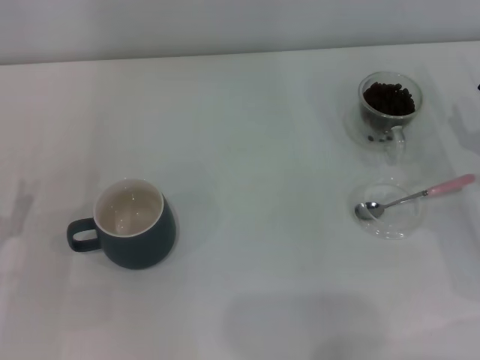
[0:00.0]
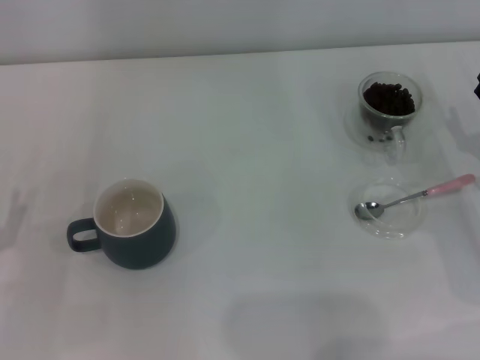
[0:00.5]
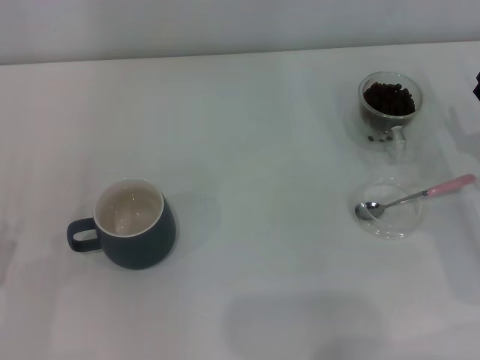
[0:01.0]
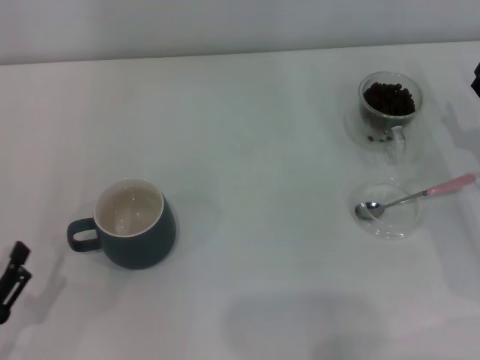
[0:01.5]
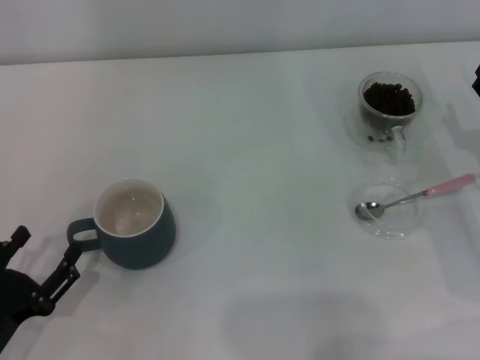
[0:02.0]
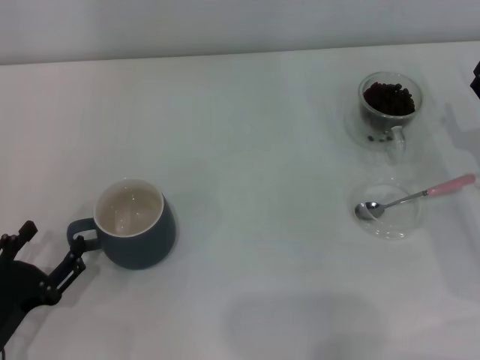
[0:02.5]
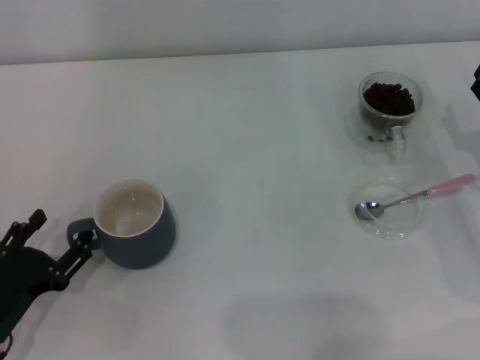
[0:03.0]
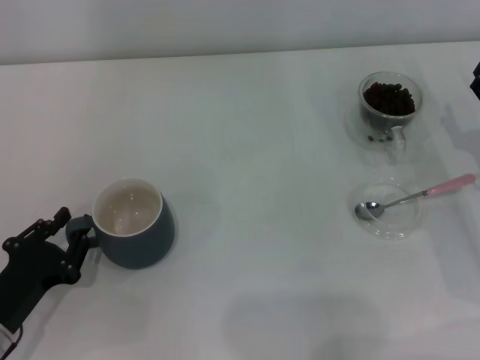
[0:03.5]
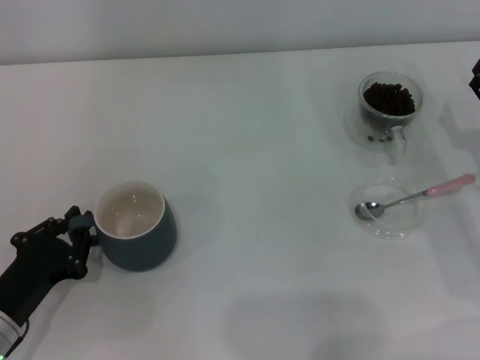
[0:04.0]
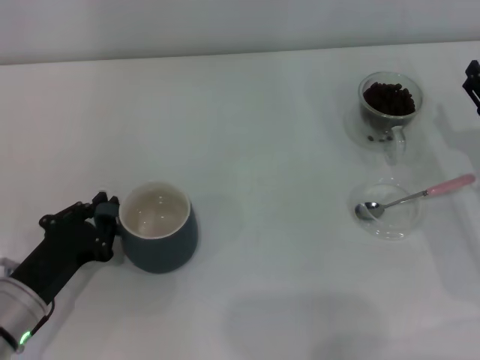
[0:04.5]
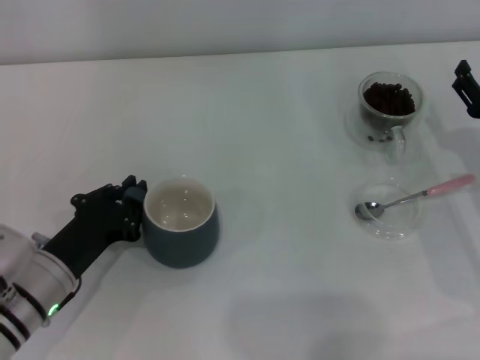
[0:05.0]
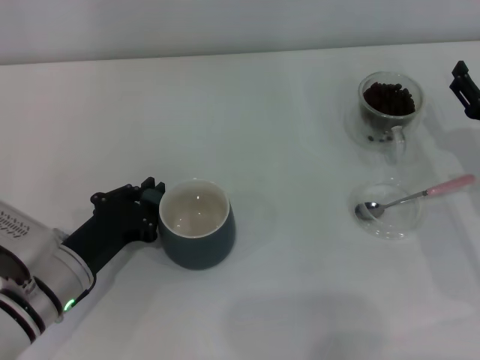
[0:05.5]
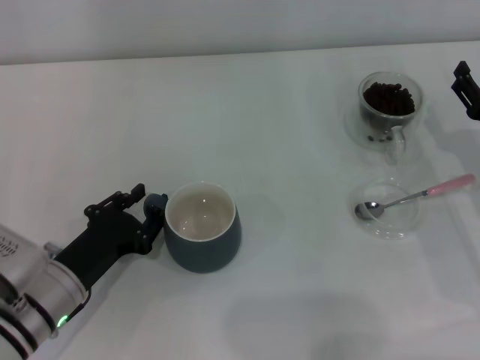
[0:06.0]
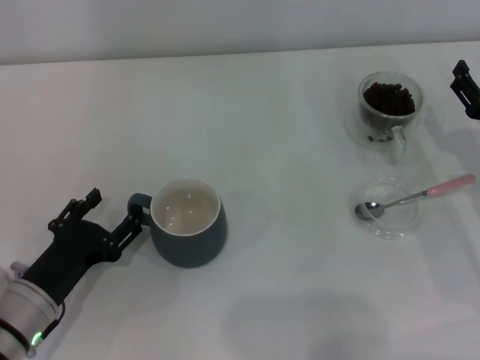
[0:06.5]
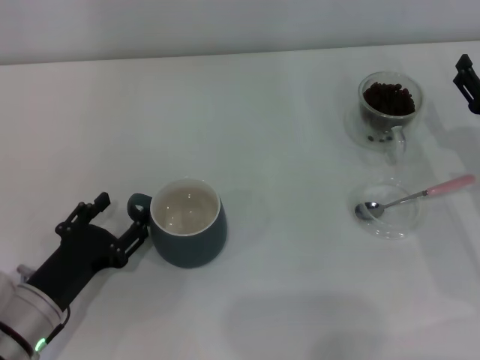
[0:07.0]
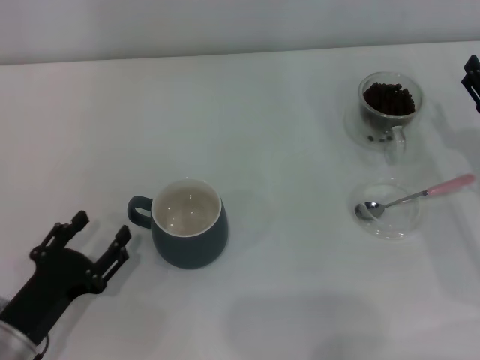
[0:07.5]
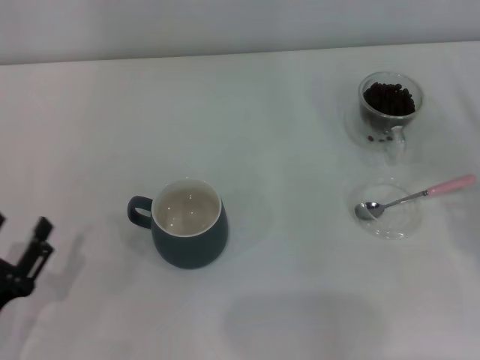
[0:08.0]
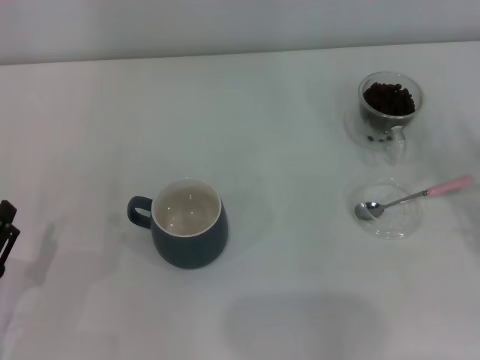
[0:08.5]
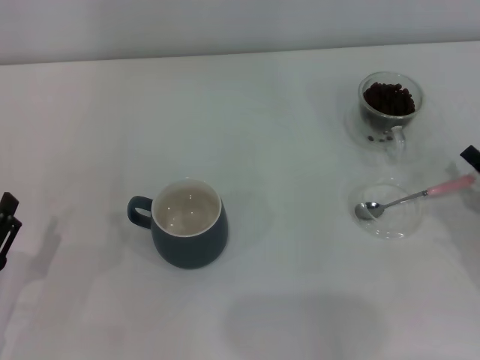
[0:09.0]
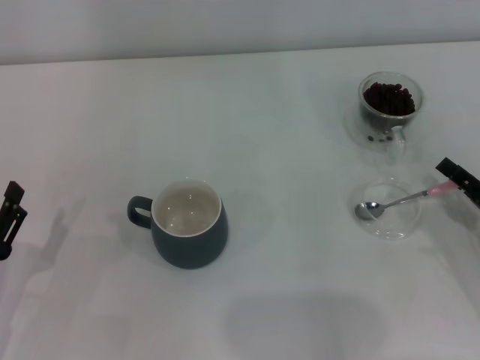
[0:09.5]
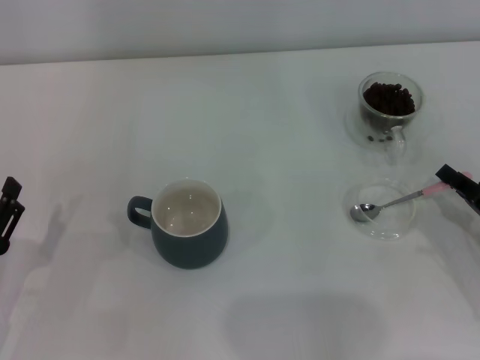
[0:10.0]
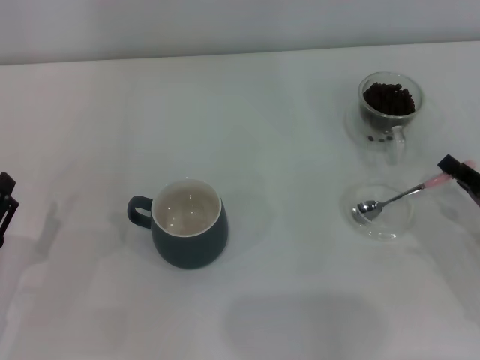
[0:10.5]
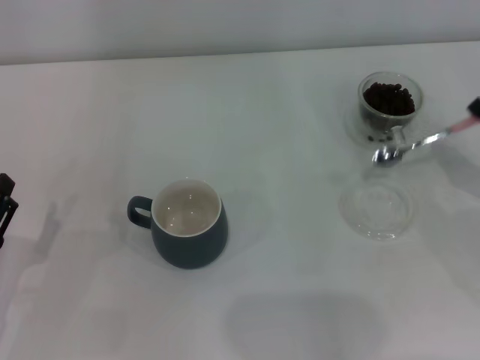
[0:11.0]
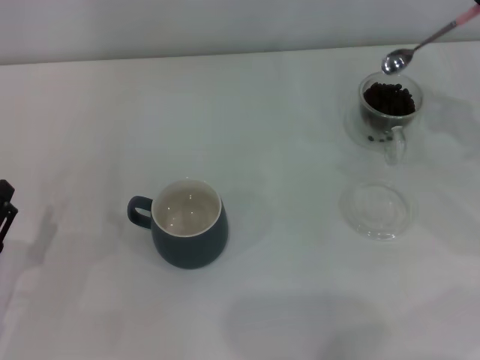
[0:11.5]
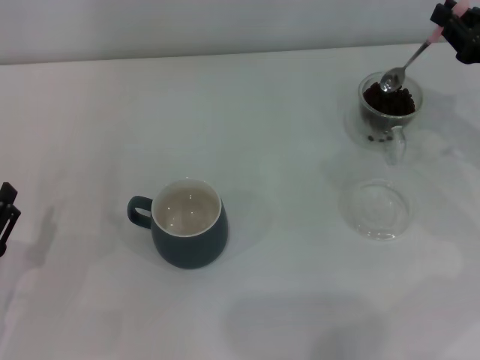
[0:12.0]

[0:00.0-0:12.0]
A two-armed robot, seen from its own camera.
Task of the whole recording: Use a pink spoon to take out the coffee beans from the glass and pour them into the gray cup.
Step, 0:00.0 to 0:07.0: Move the cup to the center of view with the left gripper.
Step, 0:07.5 to 0:10.5: Pick up the spoon with the right gripper.
0:00.0 to 0:02.0: The left gripper moves backward, some 5 cm.
0:02.0 to 0:04.0: The left gripper shifts by approximately 5 cm, and closes.
0:04.0 to 0:06.0: The left gripper goes roughly 5 cm to the right.
0:06.0 to 0:08.0: The right gripper changes place by approximately 5 cm; the left gripper heads backward and to the left, covering roughly 10 cm, and opens up.
0:08.0 to 0:10.0: The right gripper ends up approximately 5 cm from where it was, and closes up.
0:10.0 to 0:12.0: The right gripper goes about 15 cm forward and upward.

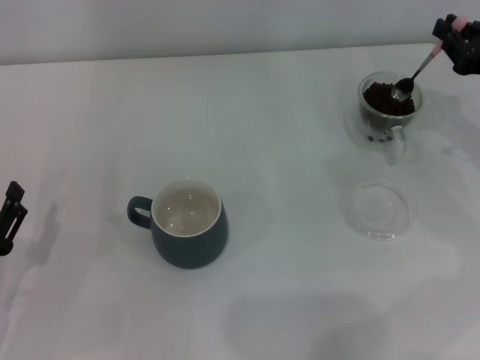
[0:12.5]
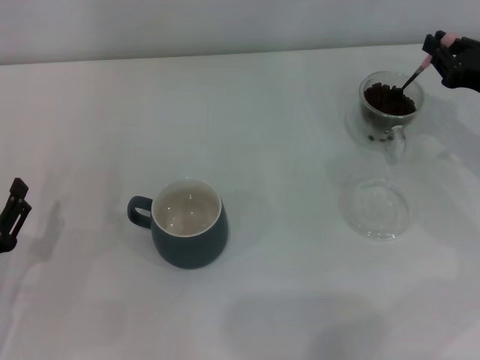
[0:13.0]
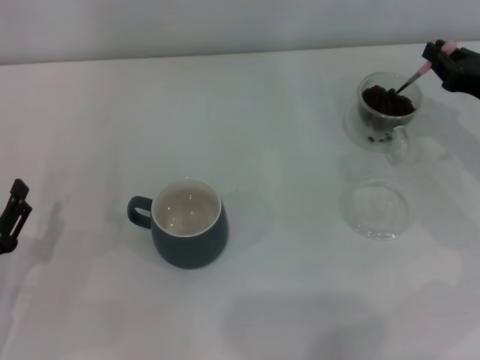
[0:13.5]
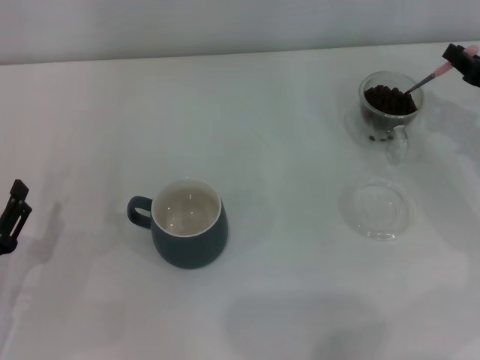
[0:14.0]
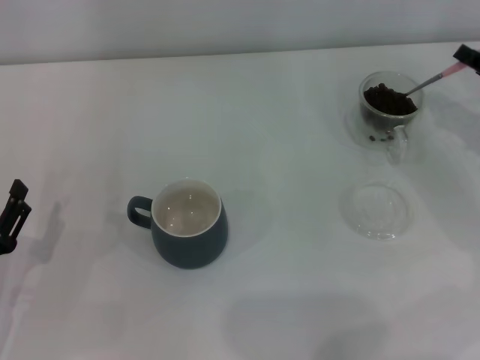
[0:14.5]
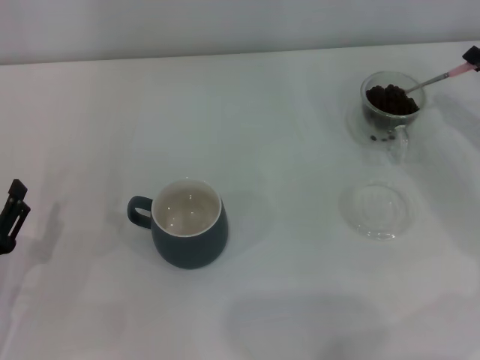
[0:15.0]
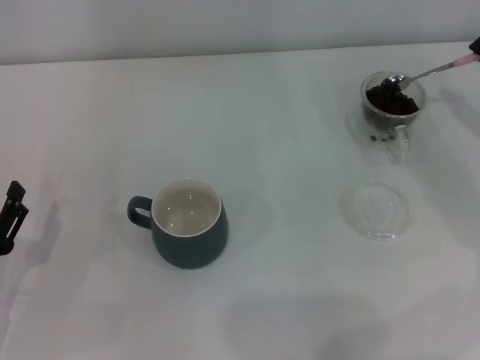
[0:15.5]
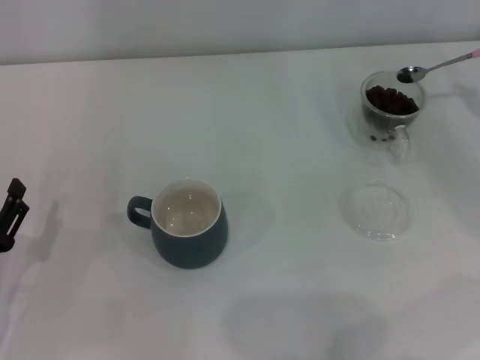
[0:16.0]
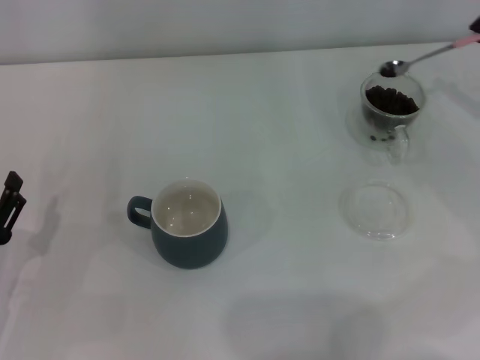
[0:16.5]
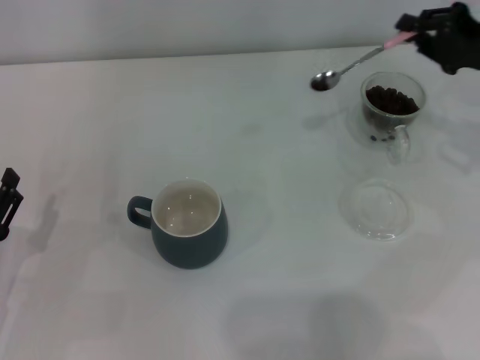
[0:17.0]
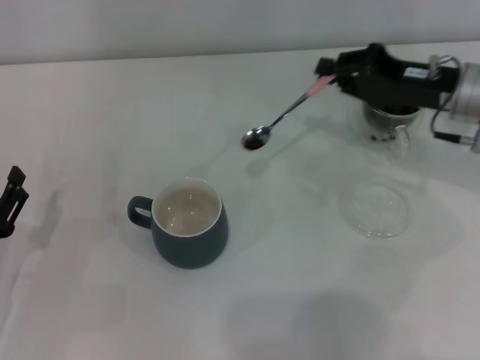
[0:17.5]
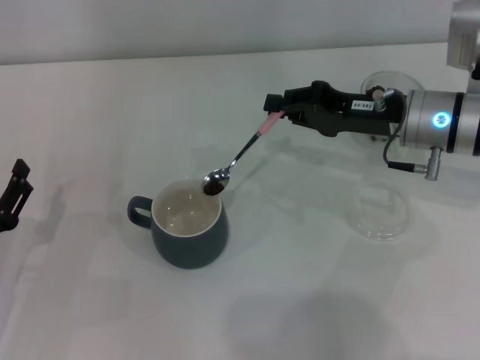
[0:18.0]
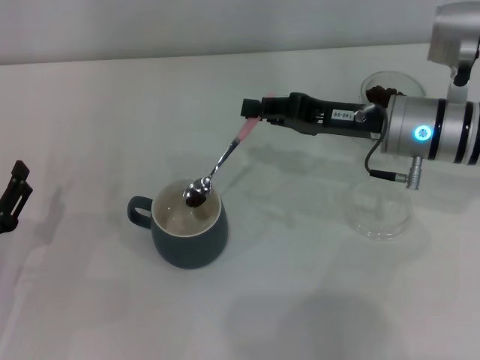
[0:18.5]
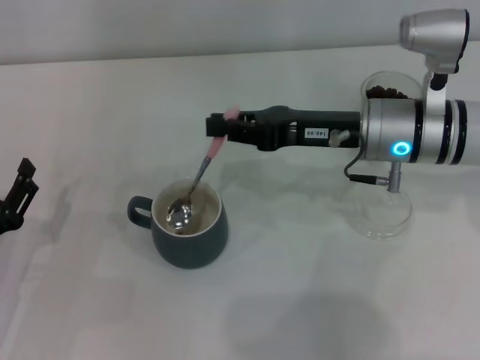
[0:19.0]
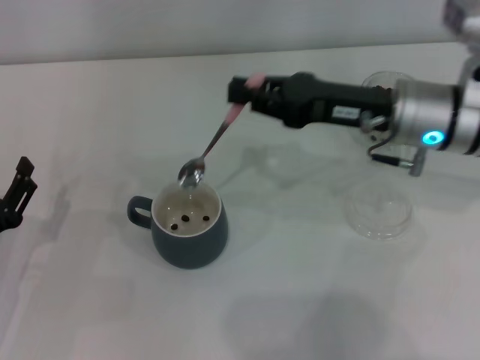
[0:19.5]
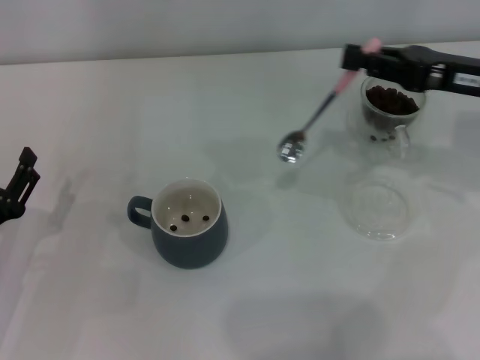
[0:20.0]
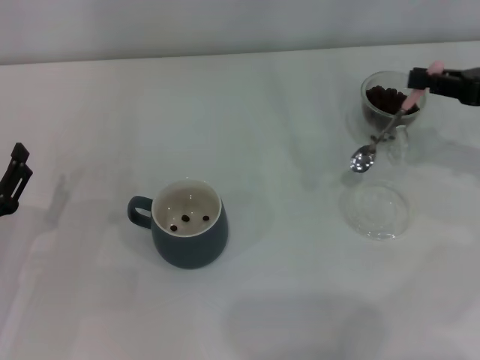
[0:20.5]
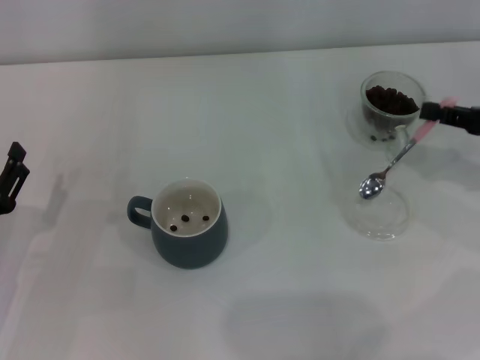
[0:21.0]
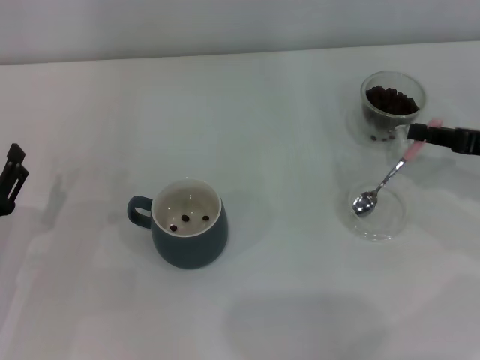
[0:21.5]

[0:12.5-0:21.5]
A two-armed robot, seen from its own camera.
Task of the whole recording: Use a pink spoon to take out the coffee beans from the glass and pour them into the gray cup.
Step, 0:12.5 to 0:19.0: Scoop a spoonful of beans into the cup with the right gripper.
0:14.5 to 0:17.0: The right gripper moves upward, about 5 cm.
0:17.0 to 0:19.5: The right gripper is displaced to the left by about 15 cm.
0:19.5 to 0:21.5: The right gripper shifts about 15 cm to the right.

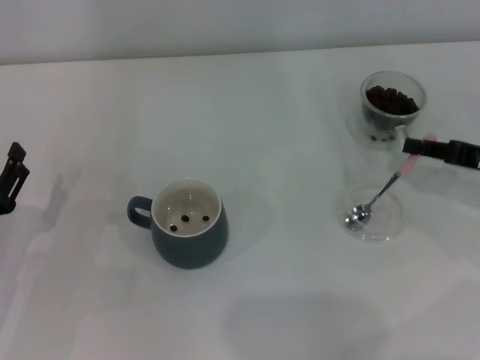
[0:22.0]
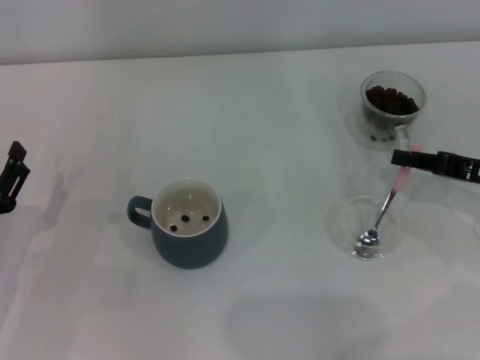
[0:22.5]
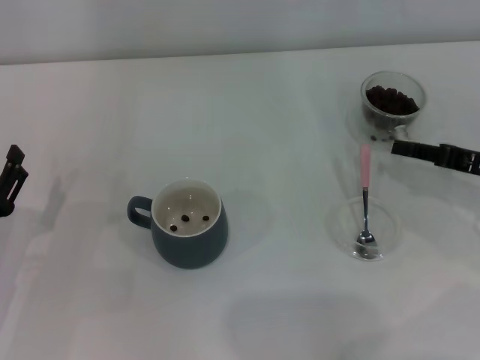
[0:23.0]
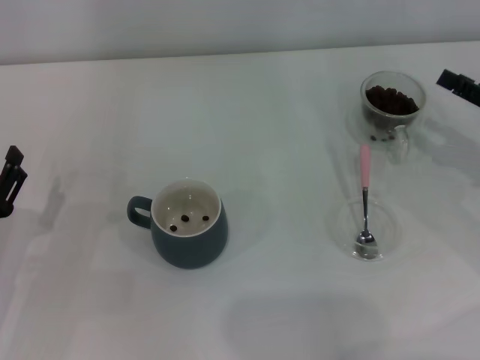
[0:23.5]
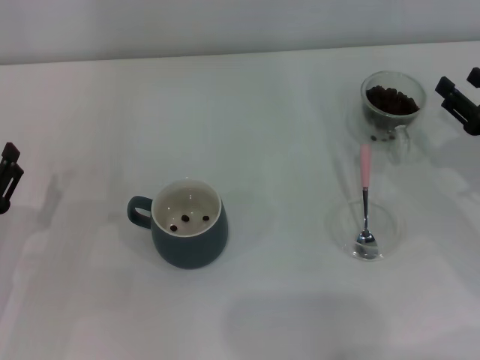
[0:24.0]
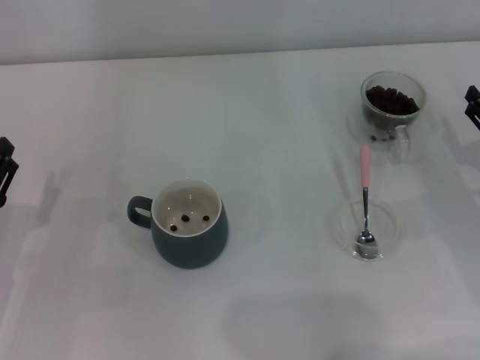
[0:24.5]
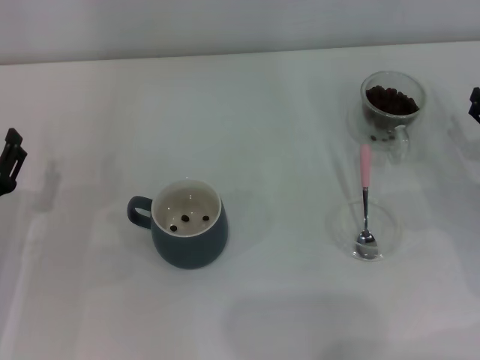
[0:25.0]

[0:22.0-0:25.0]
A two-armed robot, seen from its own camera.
Task of the whole recording: Use a pink spoon to take out the coffee beans from the glass and pour them into the gray cup.
0:22.0 to 0:23.5: The right gripper opens its fingers.
